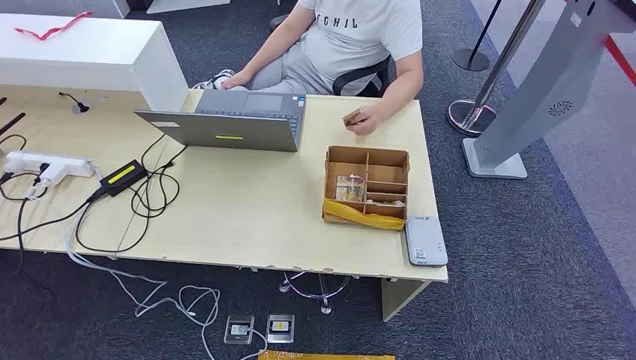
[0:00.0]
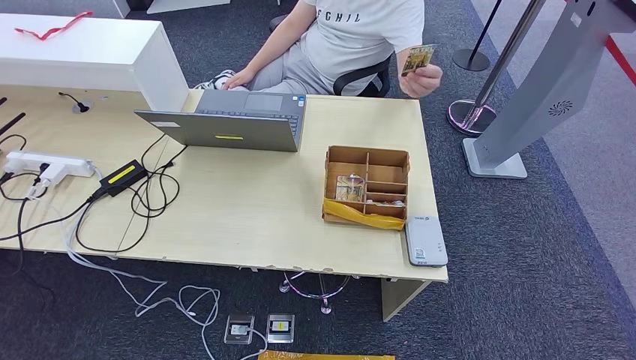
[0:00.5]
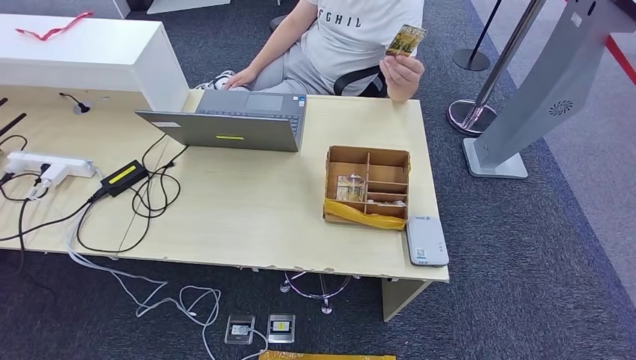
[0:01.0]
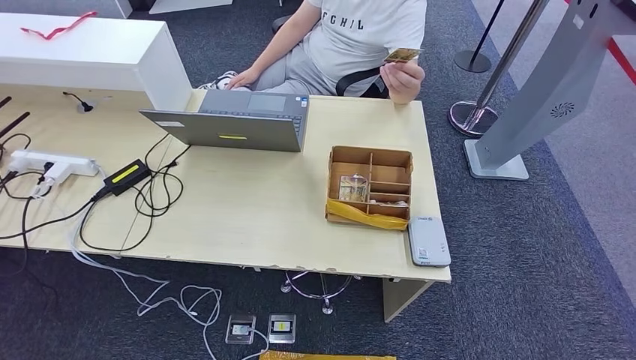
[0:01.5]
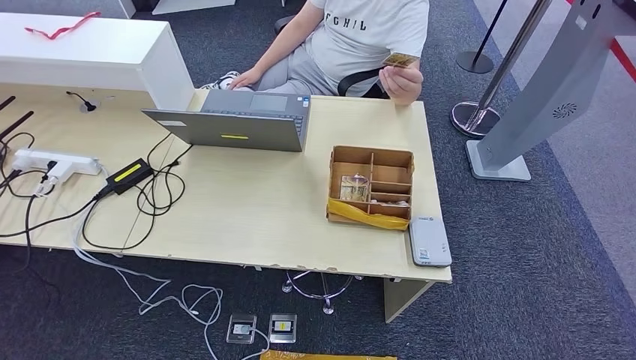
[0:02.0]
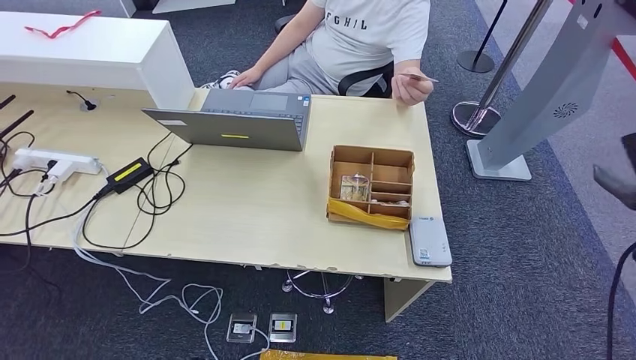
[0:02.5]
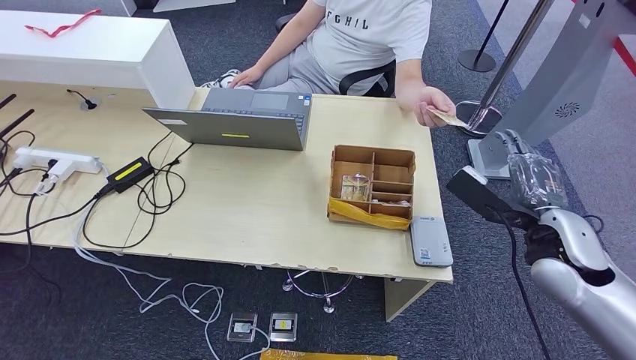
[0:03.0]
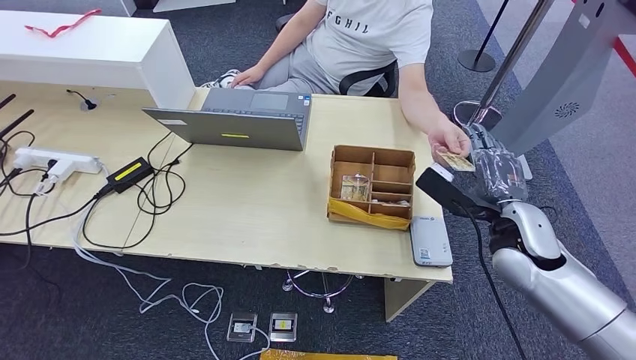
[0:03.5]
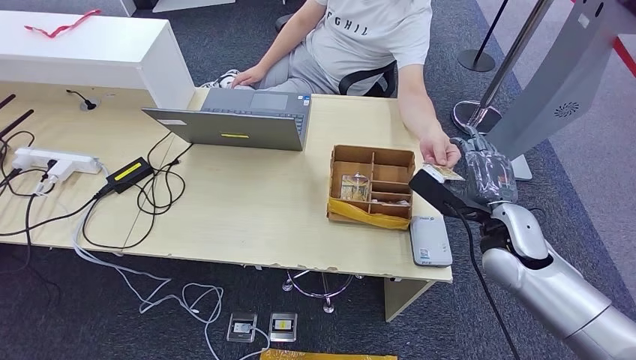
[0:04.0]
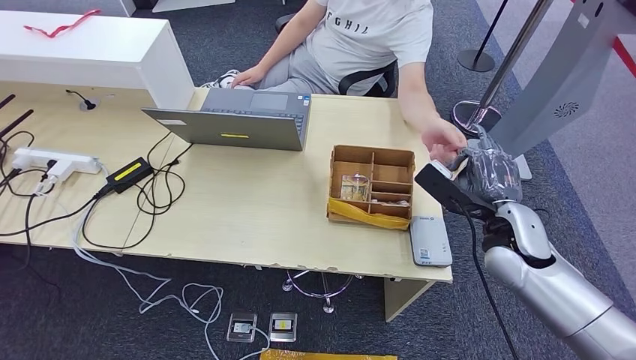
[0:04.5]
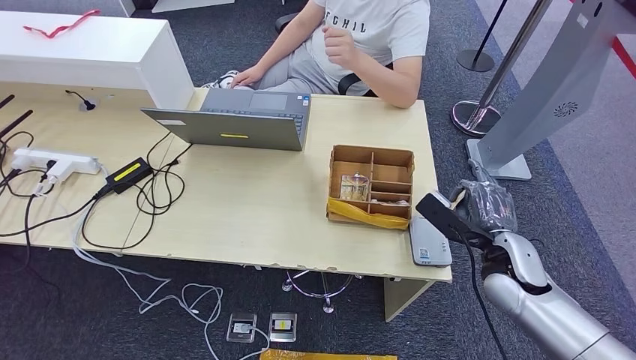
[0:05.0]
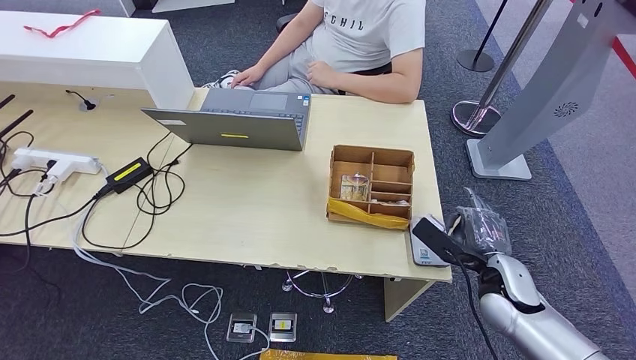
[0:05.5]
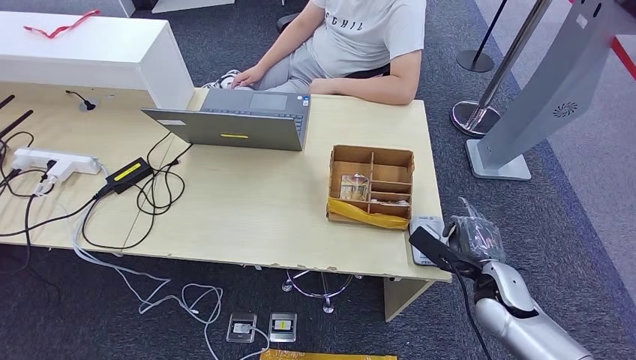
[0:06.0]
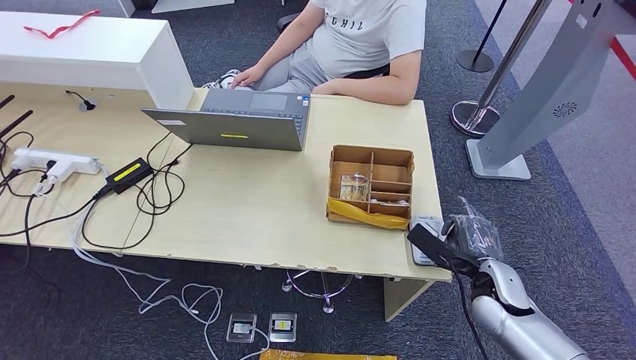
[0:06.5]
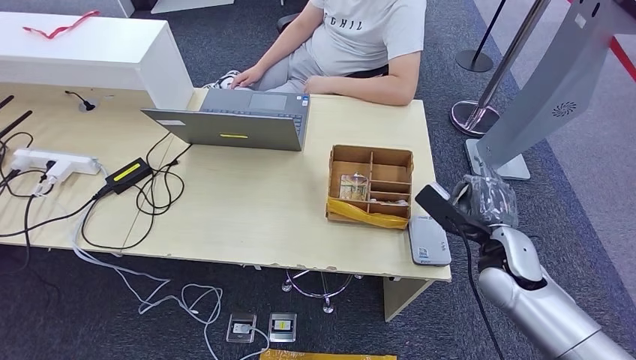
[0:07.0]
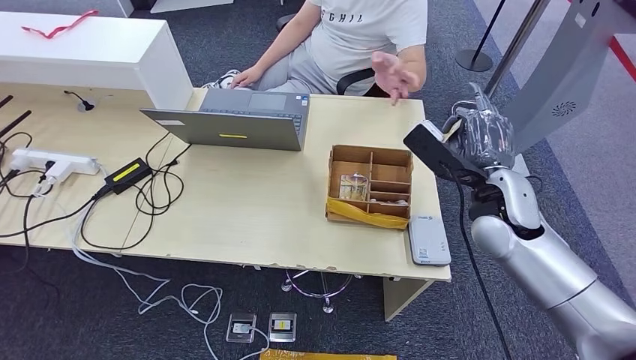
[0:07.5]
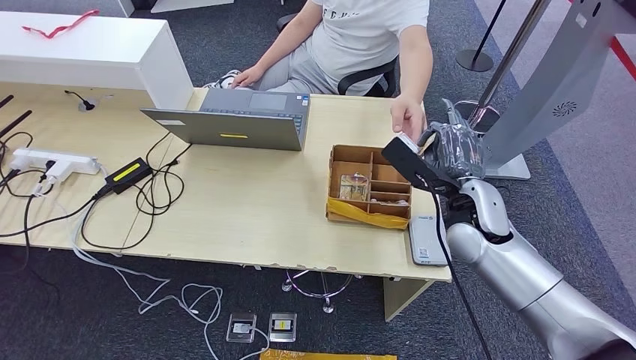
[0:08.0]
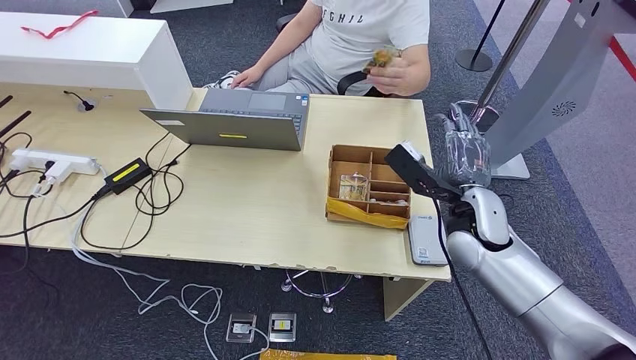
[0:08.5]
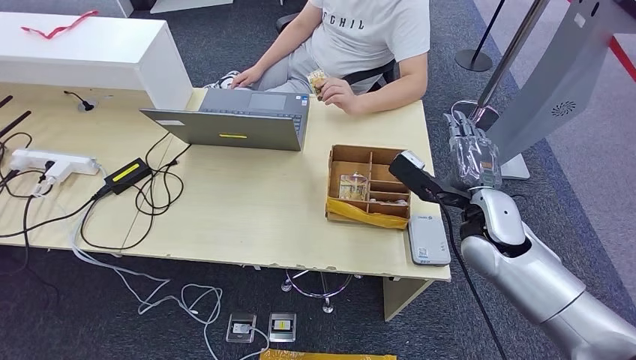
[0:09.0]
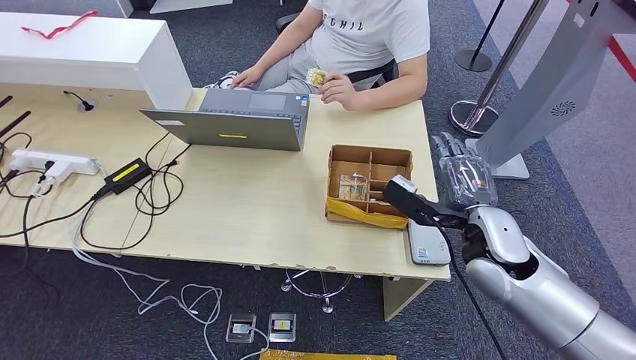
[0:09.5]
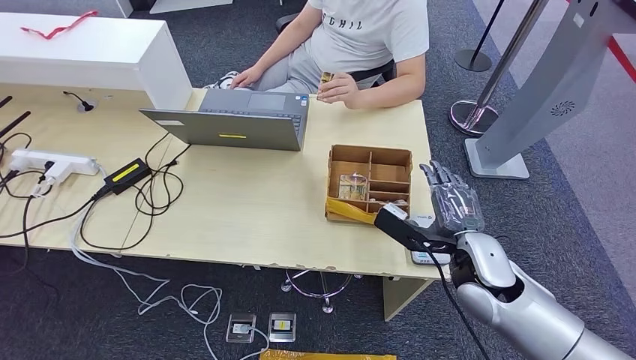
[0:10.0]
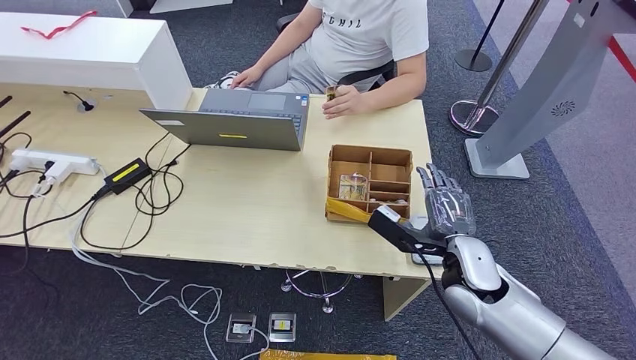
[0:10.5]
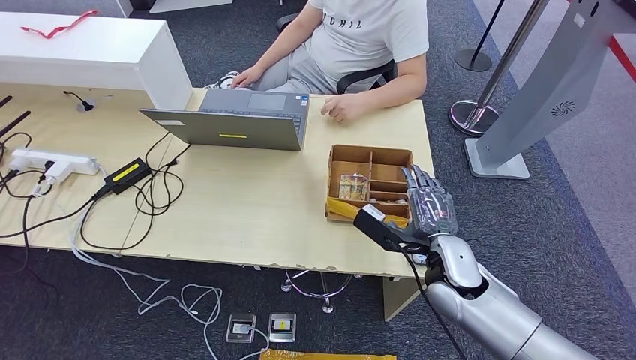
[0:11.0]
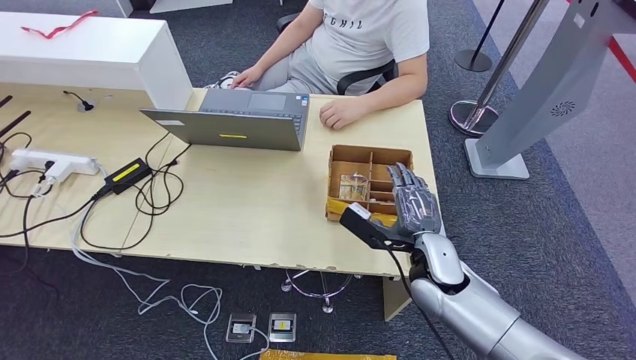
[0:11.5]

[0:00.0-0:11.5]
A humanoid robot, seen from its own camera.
Step, 0:00.0 to 0:04.5: Take the ID card from the person's hand.
Step, 0:05.0 to 0:06.0: Place the ID card on the card reader.
Step, 0:07.0 to 0:08.0: Hand the ID card to the person.
0:02.0 to 0:04.0: The right hand goes roughly 30 cm to the left and forward.
0:04.0 to 0:06.0: The right hand goes some 10 cm downward.
0:06.0 to 0:07.5: The right hand shifts roughly 20 cm upward and forward.
0:07.5 to 0:09.5: The right hand shifts by about 5 cm.
0:09.5 to 0:11.5: The right hand is displaced downward and to the left by approximately 10 cm.

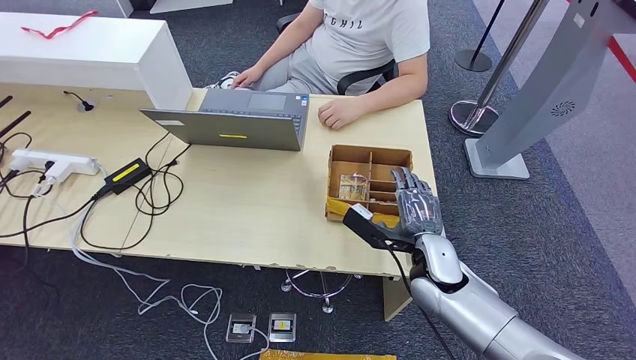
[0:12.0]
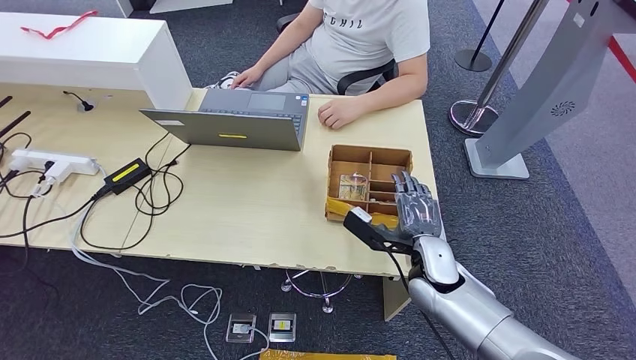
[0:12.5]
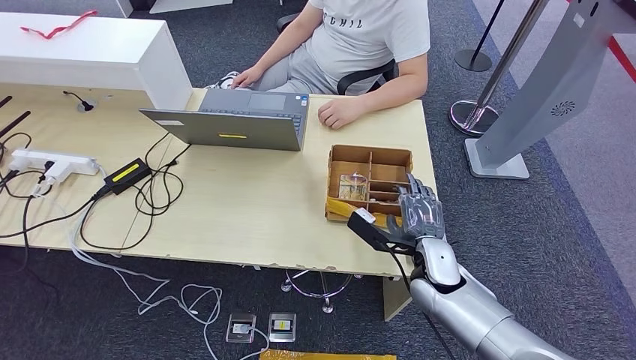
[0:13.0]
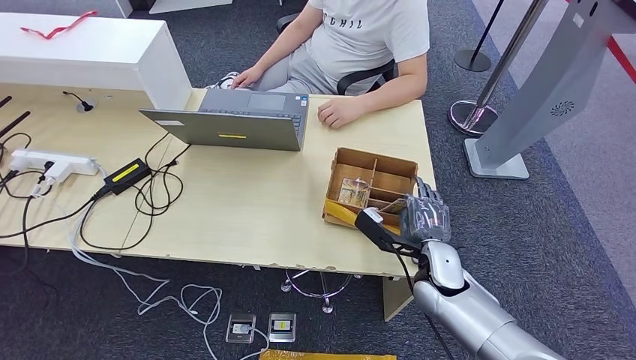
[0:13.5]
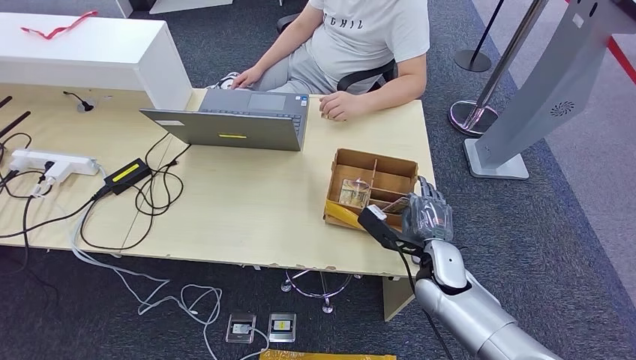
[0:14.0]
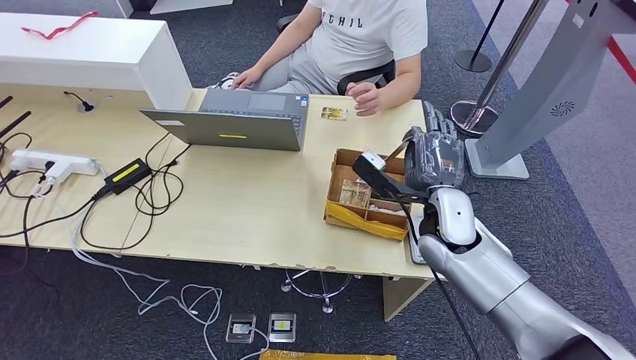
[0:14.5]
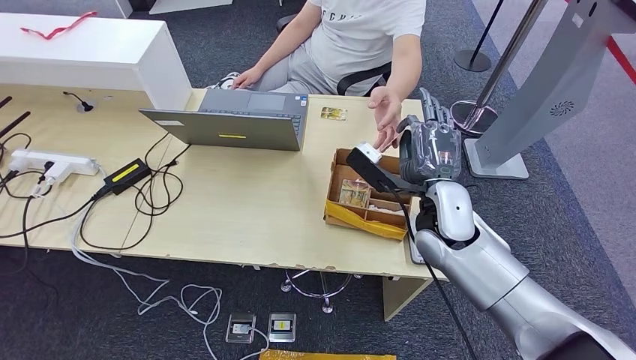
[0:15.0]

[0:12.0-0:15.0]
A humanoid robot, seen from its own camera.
Step, 0:12.0 to 0:14.0: Pick up the room key from the key card box.
0:12.0 to 0:13.5: There are only small adjustments of the hands.
0:13.5 to 0:15.0: The right hand heads upward, covering some 15 cm.
